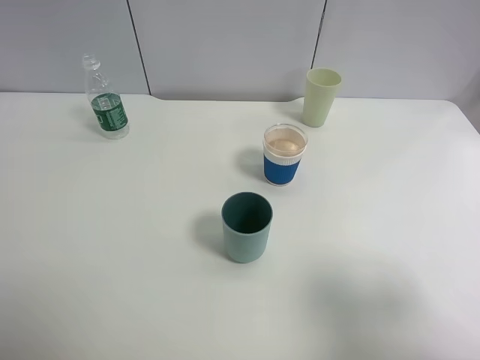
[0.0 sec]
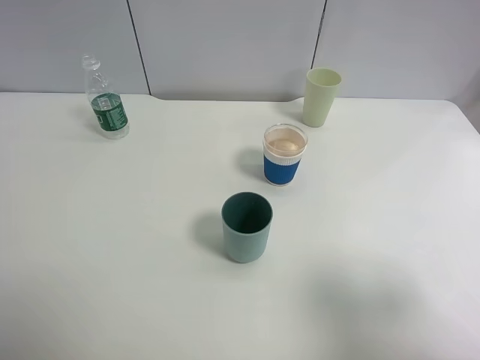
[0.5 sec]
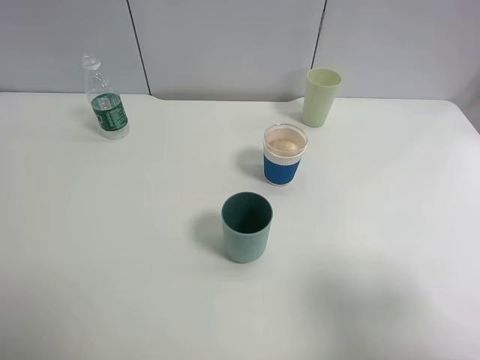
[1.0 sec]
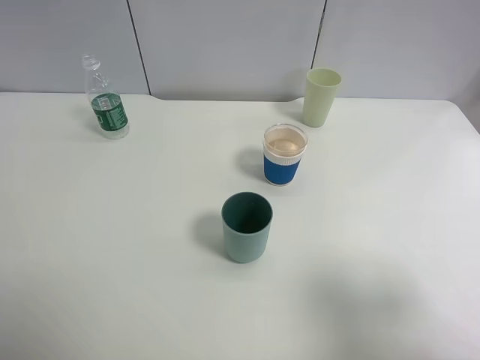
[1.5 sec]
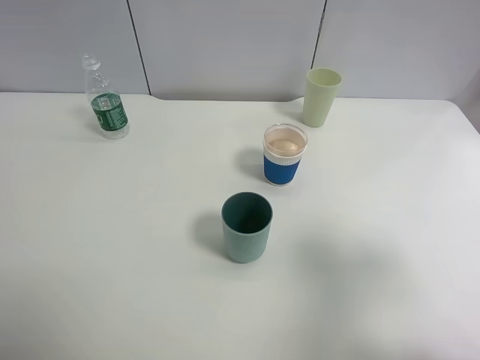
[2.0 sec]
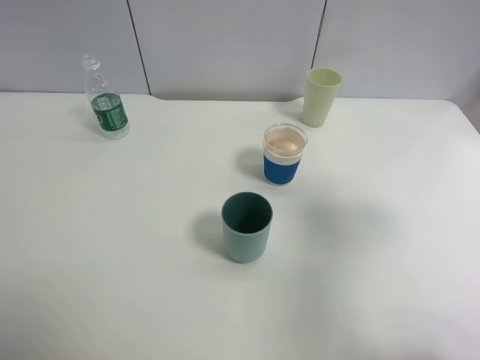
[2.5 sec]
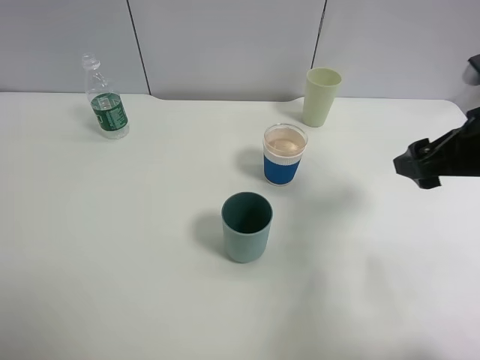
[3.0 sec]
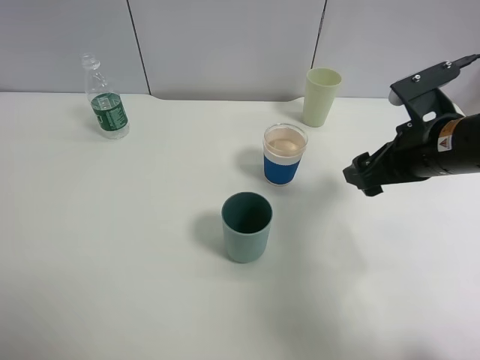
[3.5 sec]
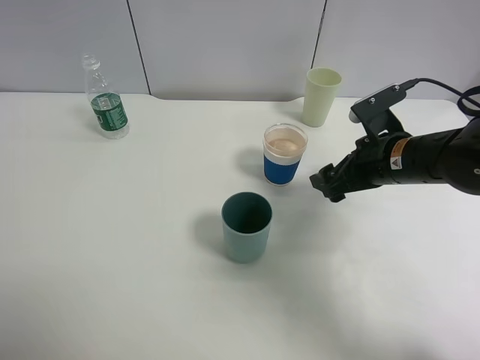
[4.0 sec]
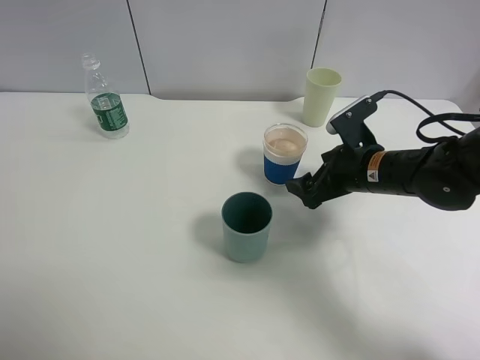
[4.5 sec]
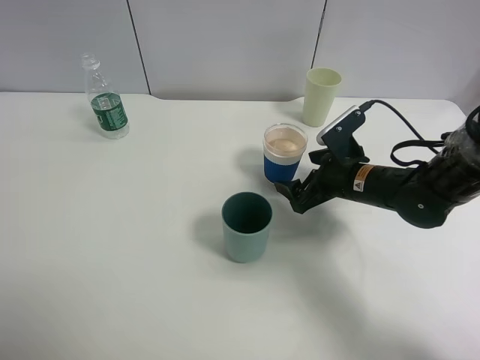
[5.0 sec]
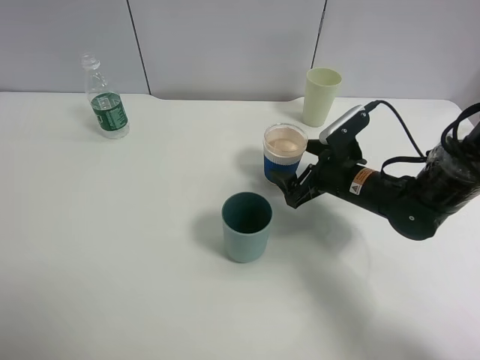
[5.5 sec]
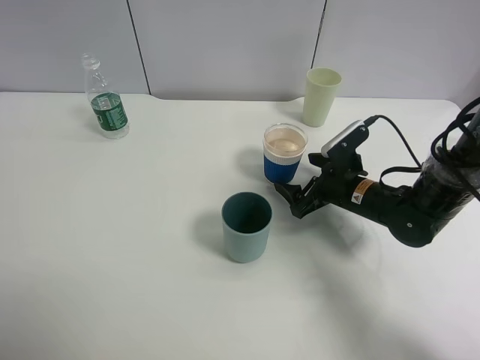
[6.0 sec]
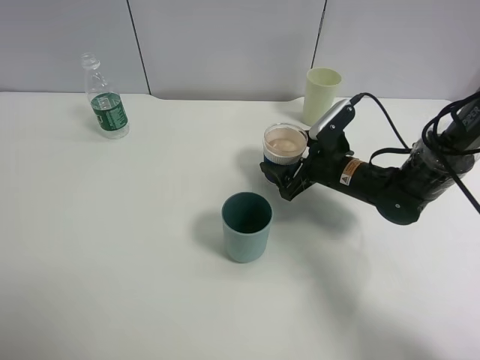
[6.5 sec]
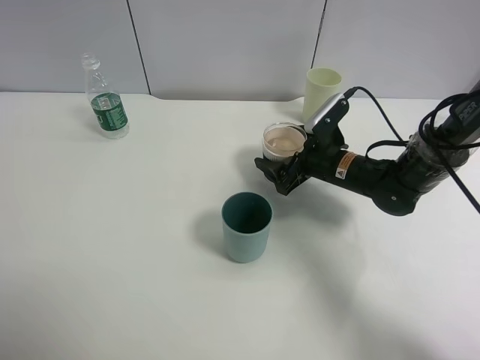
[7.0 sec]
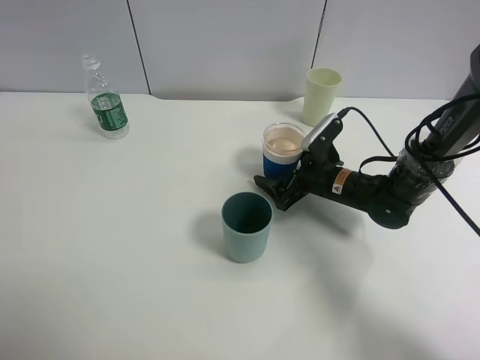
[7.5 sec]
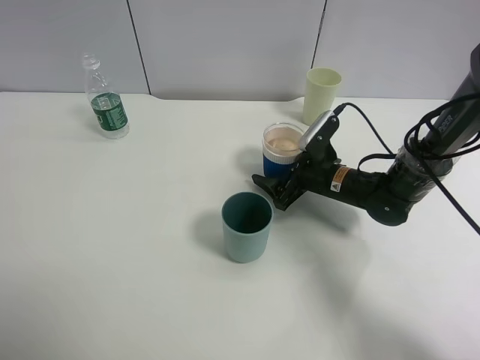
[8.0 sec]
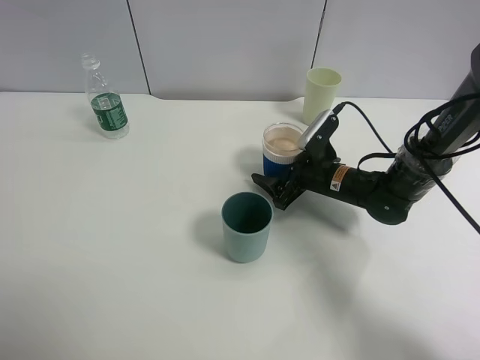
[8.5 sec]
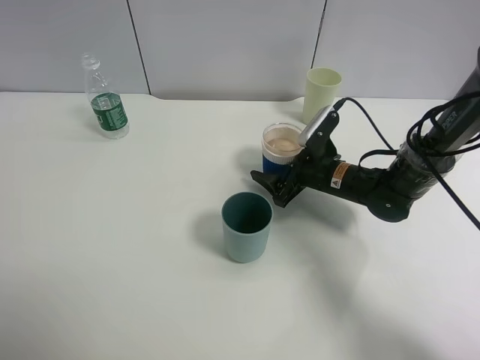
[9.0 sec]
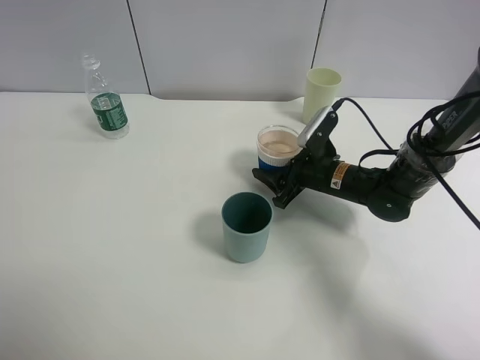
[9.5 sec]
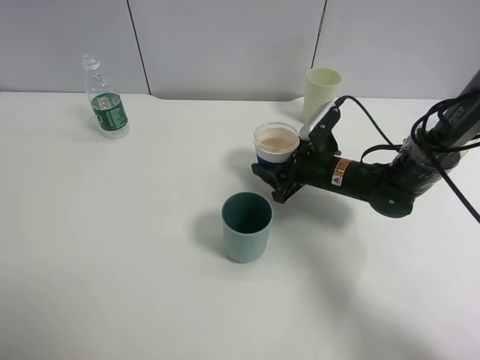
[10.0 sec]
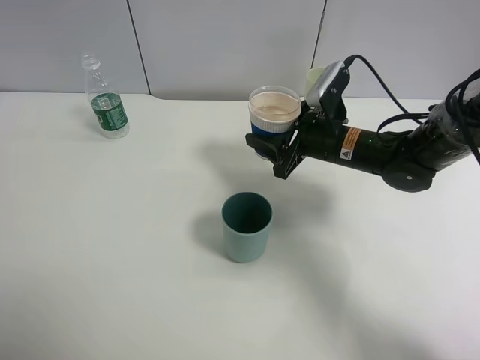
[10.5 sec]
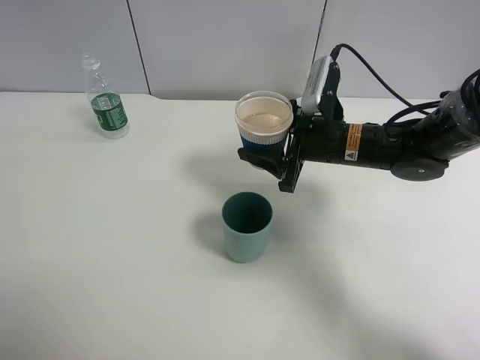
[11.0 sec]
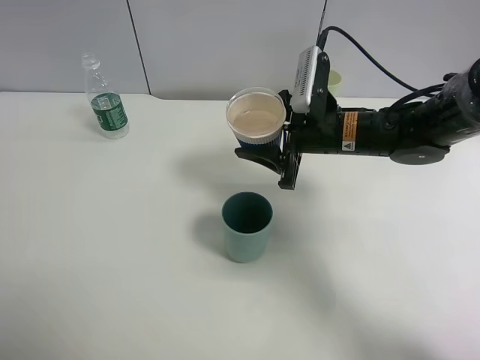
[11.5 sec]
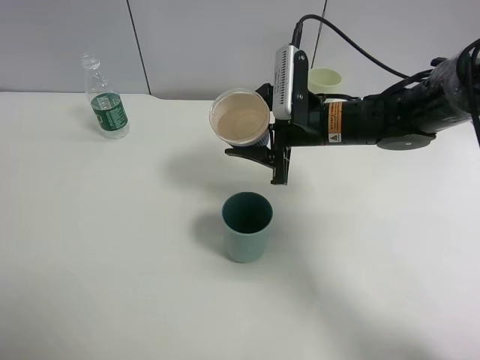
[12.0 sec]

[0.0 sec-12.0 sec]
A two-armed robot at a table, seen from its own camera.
Task of the whole recording: use a clamp to hold the bottle of the drink, pour the beverage into a random cup, then clamp the cup containing the drink and pour the drink into another random cup.
Step, 0.0 sec to 10.5 sec: Pick up the paper cup with right gripper.
0.0 sec to 2.0 sec: The right gripper changes place by approximately 5 cm.
2.0 sec to 4.0 sec: The right gripper travels forward, downward and to the left by roughly 30 cm.
4.0 sec to 6.0 sec: The right gripper heads downward, covering approximately 10 cm.
6.0 sec to 8.0 sec: The grippers stay close to where they were, moving slightly.
8.0 sec to 10.0 sec: The right gripper closes.
10.0 sec to 12.0 sec: The right gripper moves upward, roughly 10 cm.

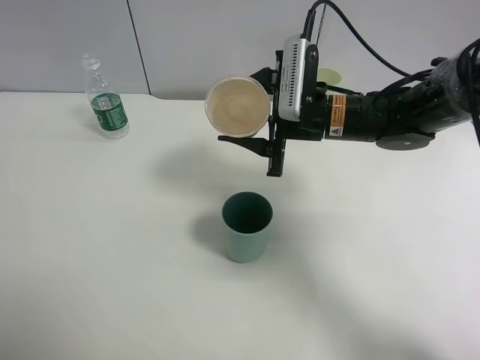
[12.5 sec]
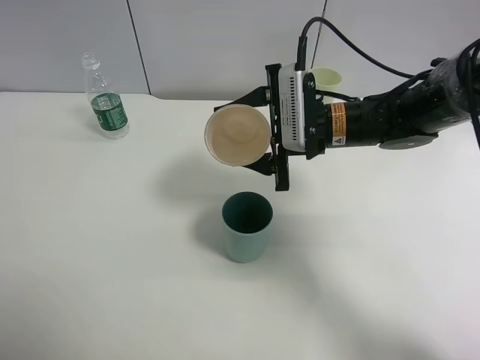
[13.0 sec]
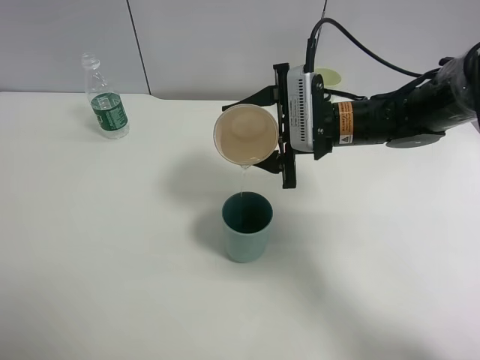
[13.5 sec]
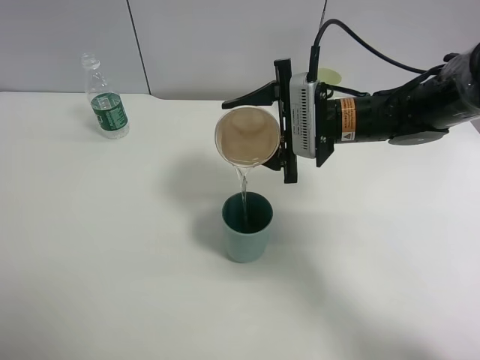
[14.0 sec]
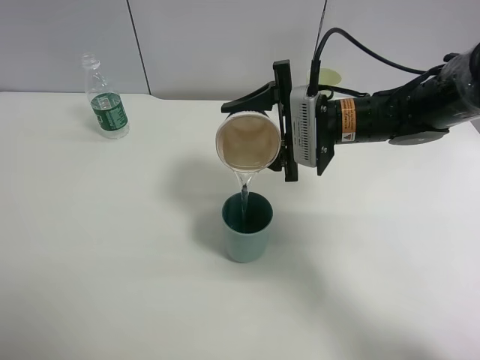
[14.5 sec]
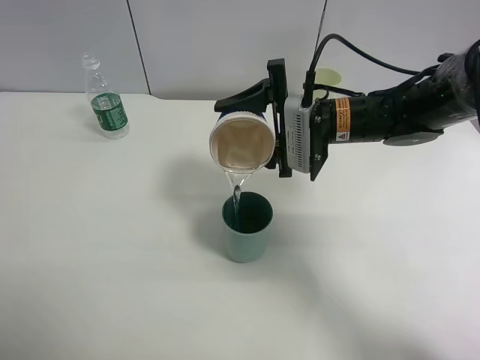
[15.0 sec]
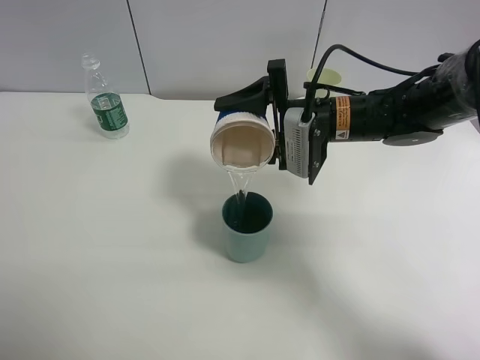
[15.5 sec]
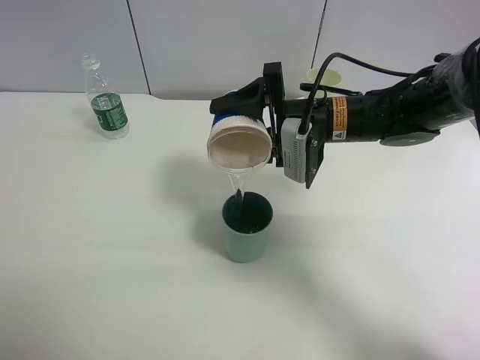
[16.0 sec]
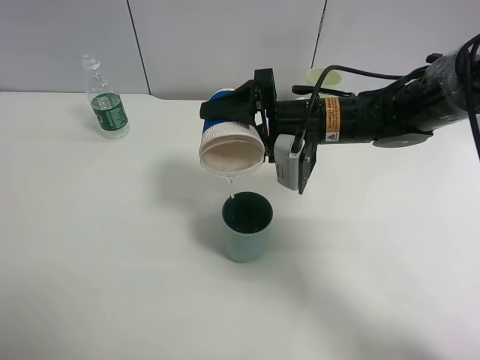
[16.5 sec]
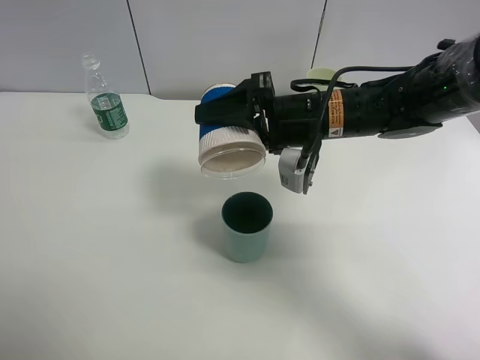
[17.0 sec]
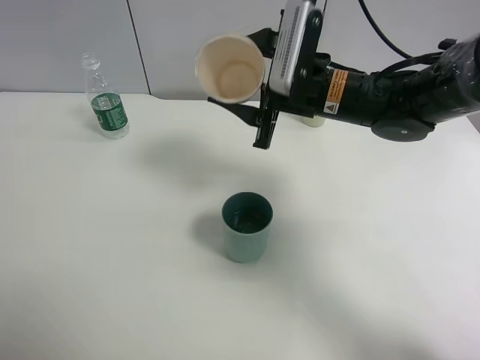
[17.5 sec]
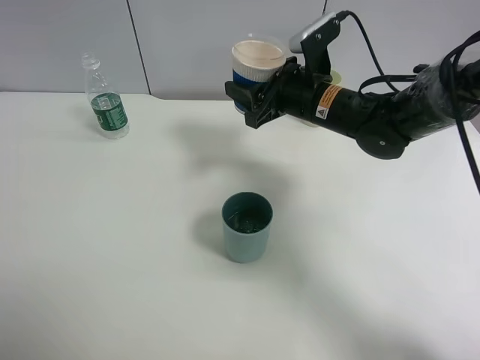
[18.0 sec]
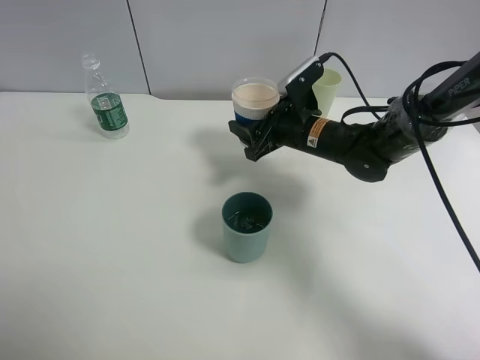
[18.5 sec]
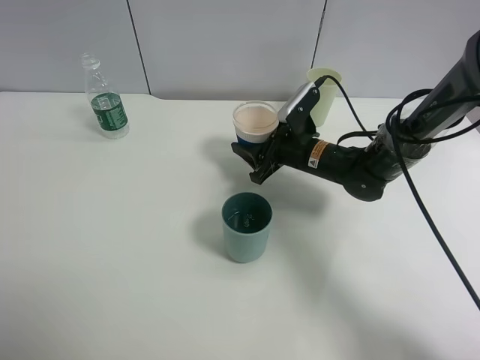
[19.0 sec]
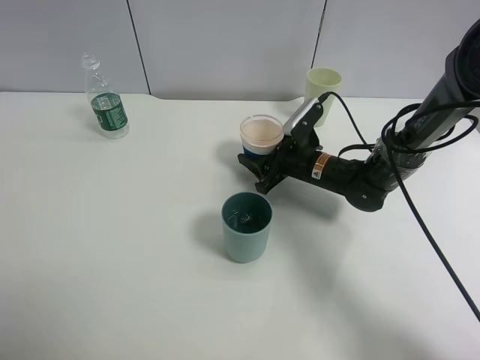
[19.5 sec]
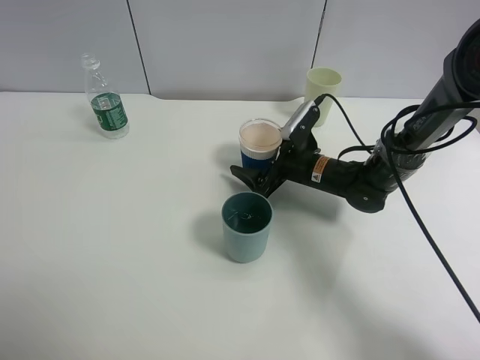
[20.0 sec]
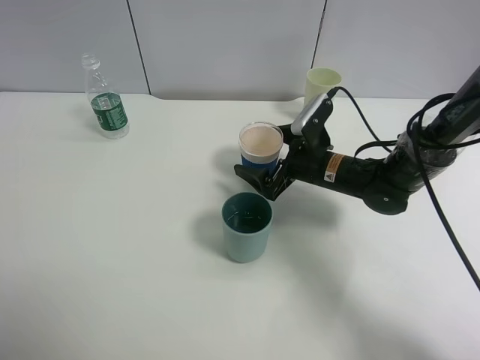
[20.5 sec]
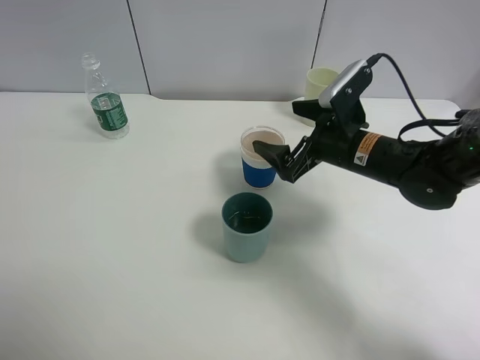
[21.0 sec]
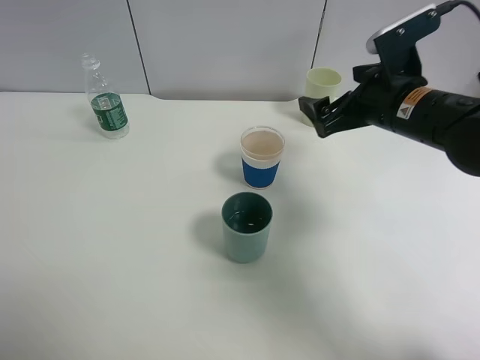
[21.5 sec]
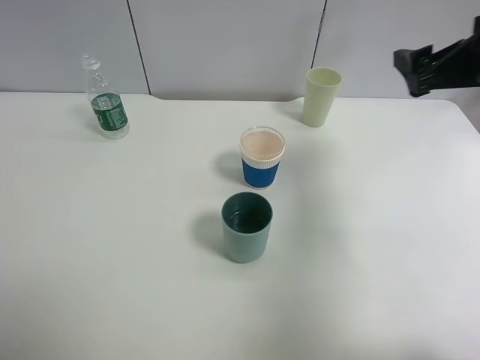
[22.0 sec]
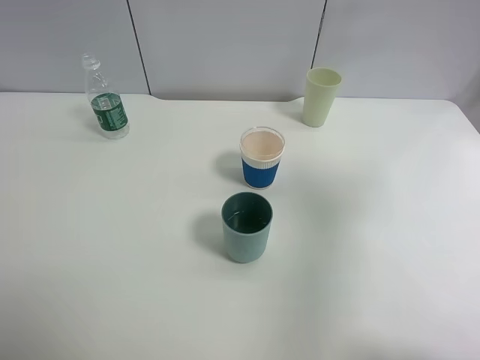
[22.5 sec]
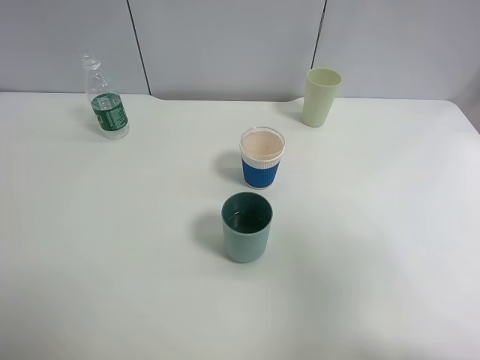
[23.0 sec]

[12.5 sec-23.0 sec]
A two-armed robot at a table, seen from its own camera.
Task of the whole recording: use a clamp to hold the bottle of the drink, pour the beverage into a random cup, then clamp the cup containing the drink and pour the drink into another random cup.
Step, 12.5 sec to 17.0 sec: Pour water into the blue plastic cup with right gripper.
Step, 17.5 sec to 20.5 sec: Place the paper cup on the table with right gripper.
16.5 sec to 19.0 sec: The right gripper travels downward and forward by some 10 cm.
19.0 sec to 21.0 sec: The right gripper is displaced upward and backward by about 10 cm, and opens.
21.0 sec to 23.0 sec: The right gripper travels backward, upward and to the right by roughly 35 cm.

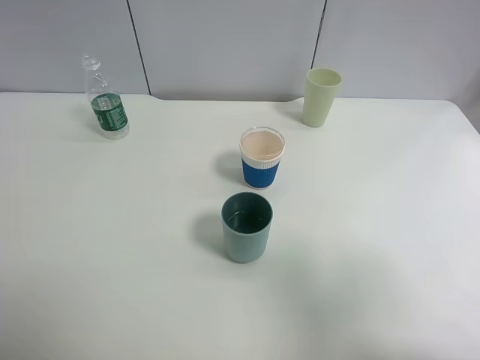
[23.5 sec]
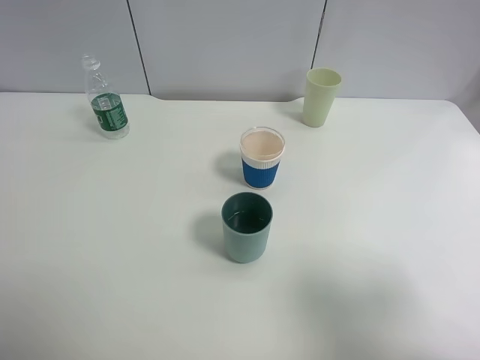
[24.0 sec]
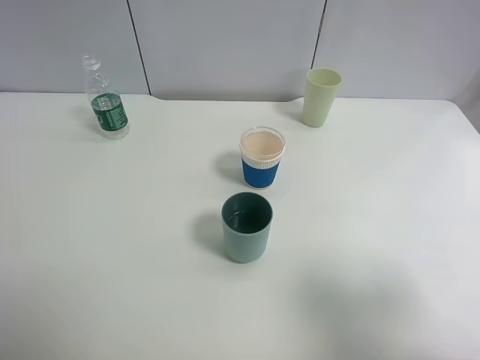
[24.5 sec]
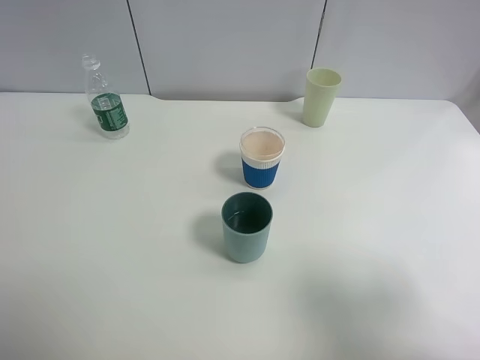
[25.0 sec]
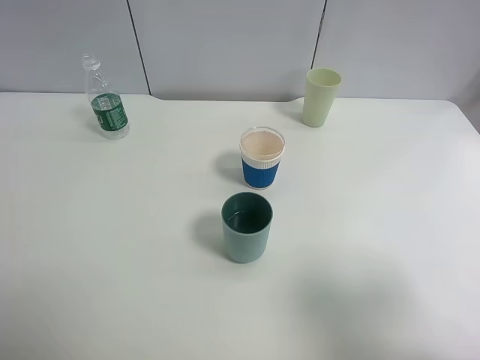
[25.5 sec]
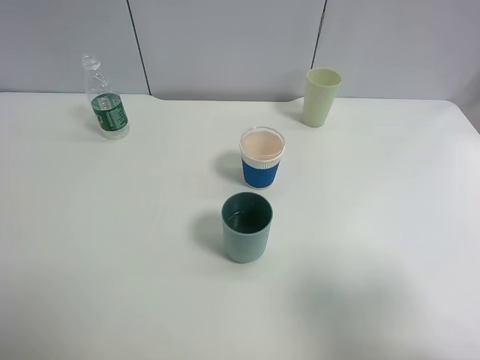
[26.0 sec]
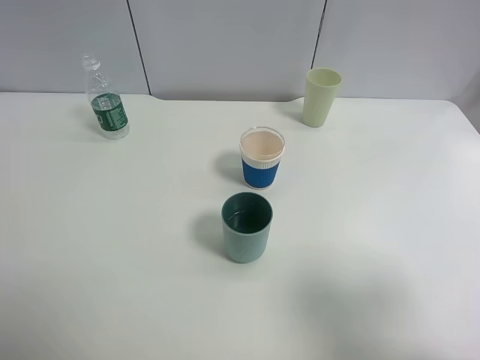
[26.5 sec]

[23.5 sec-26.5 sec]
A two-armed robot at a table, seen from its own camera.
Task of the whole recording: use a clamp to hold the bottle of the drink, pour the beverage into a random cup, then clamp the cup containing the drink and pour the drink into another random cup.
25.0 sec to 26.5 sec: Both grippers stay put.
